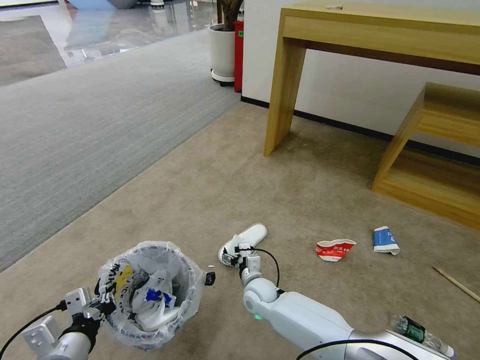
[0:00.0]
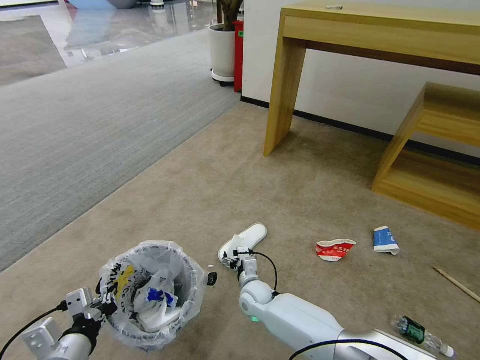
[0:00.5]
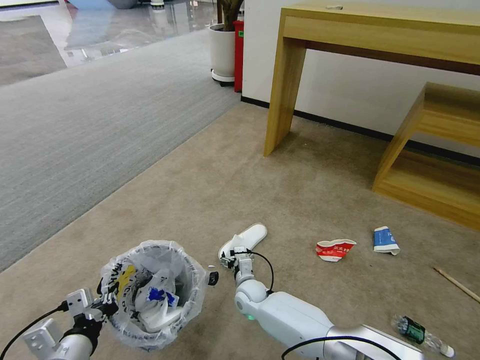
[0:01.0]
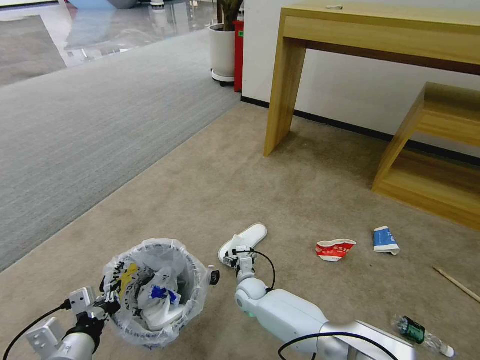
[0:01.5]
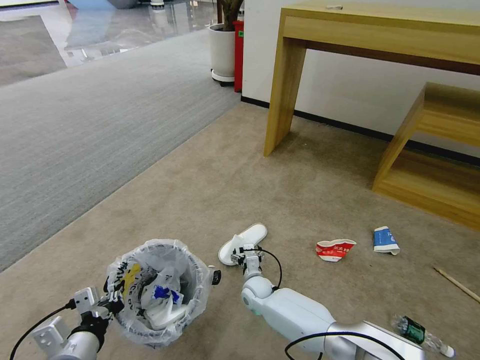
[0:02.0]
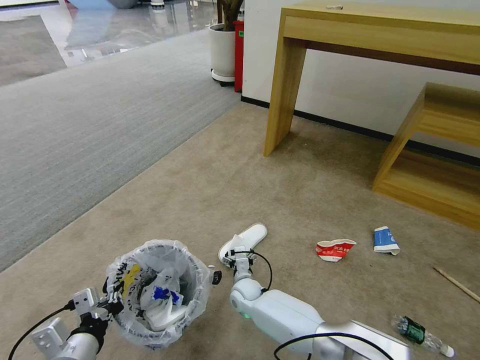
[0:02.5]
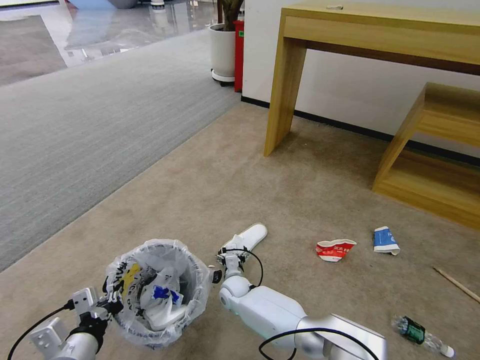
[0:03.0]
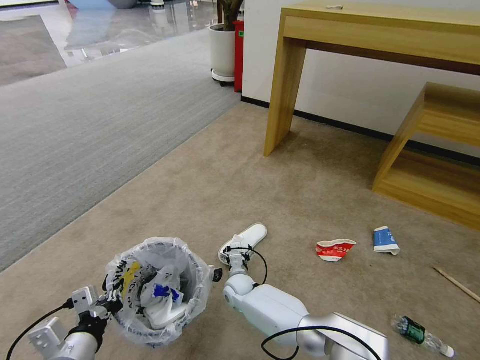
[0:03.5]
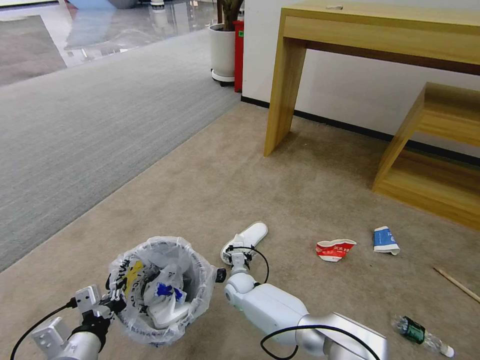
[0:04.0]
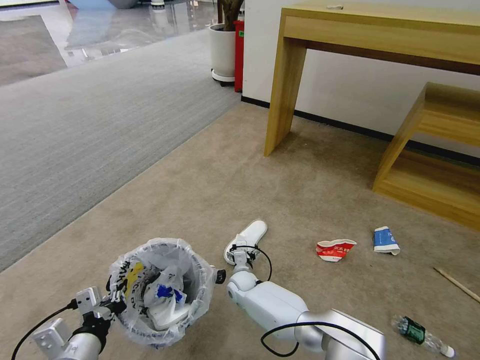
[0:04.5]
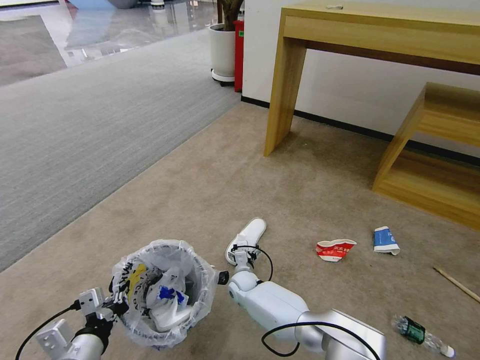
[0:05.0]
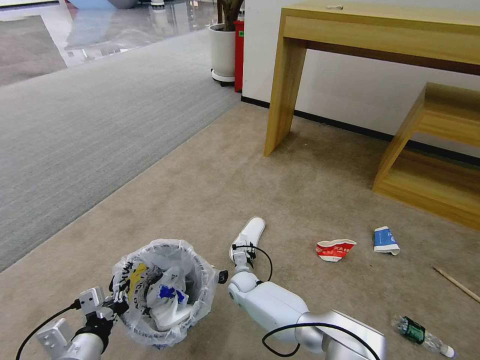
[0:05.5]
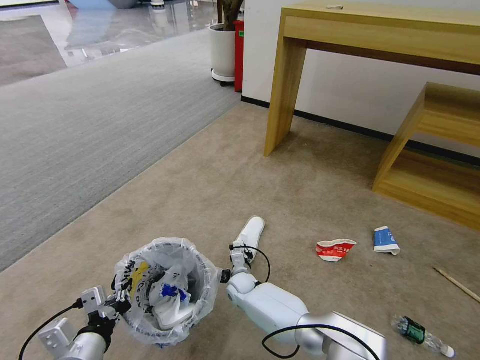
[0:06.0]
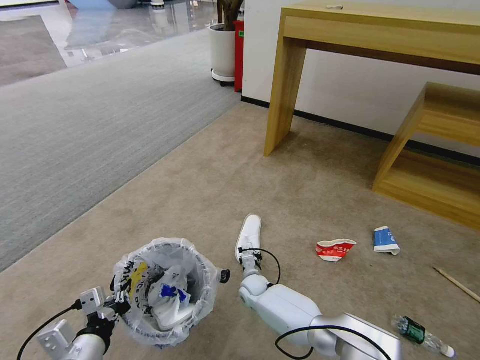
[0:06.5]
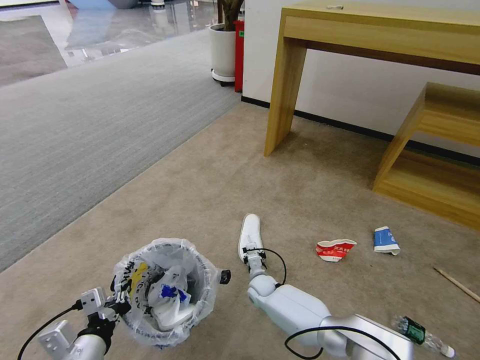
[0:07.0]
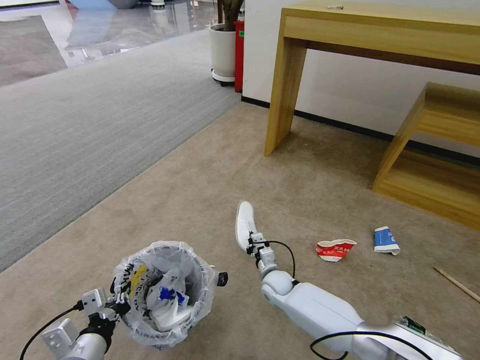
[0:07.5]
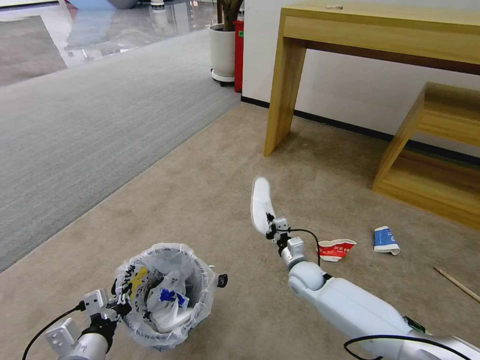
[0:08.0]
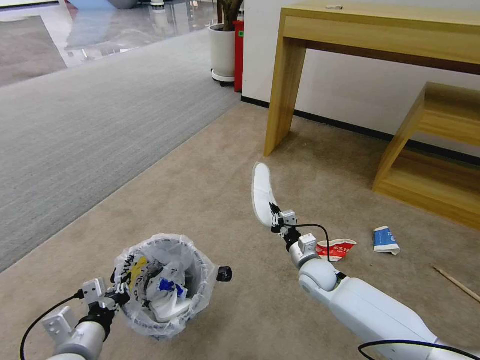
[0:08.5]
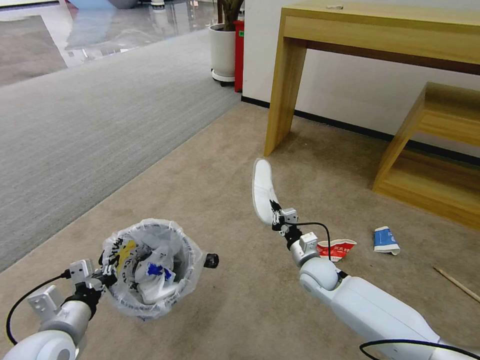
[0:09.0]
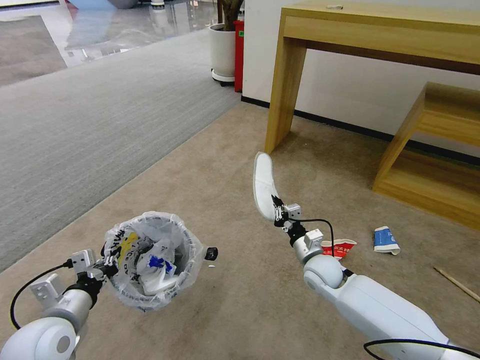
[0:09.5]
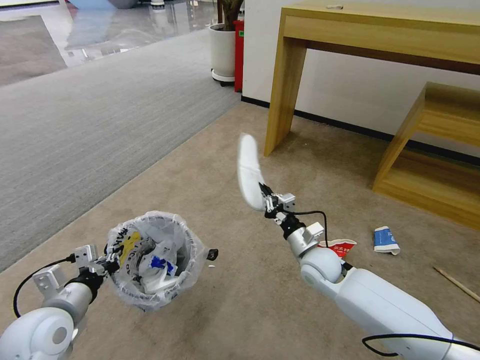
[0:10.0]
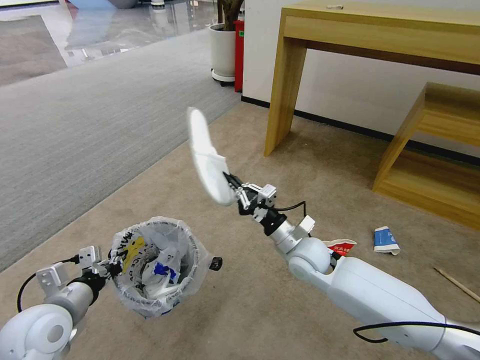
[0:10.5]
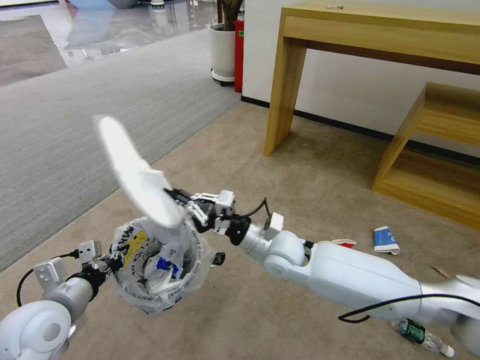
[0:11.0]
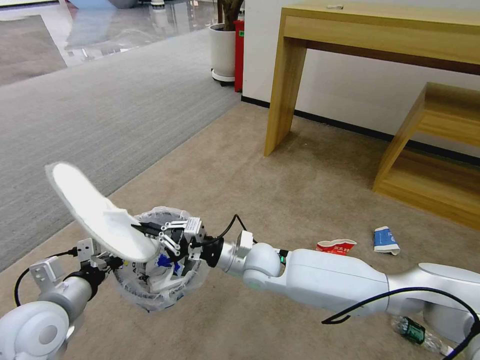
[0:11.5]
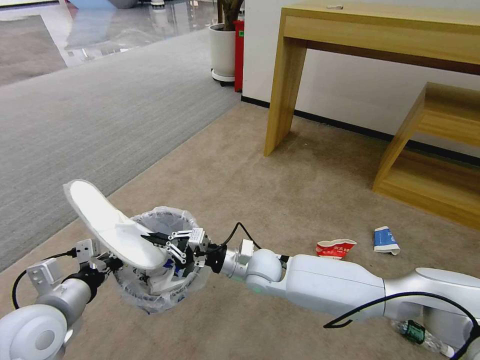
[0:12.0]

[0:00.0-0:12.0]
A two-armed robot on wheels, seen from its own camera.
Task of the whole recording: Pick up the trash bin and place the garbage on the floor into it.
0:00.0 to 0:02.0: The grippers stay close to where they were, moving slightly.
0:02.0 to 0:04.0: The right gripper is displaced to the left by approximately 5 cm.
0:04.0 to 0:06.0: The right gripper closes.
0:06.0 to 0:08.0: The right gripper heads to the right and upward, covering roughly 20 cm.
0:08.0 to 0:10.0: The left gripper shifts about 10 cm forward and to the left; the right gripper moves upward, approximately 10 cm.
0:10.0 to 0:12.0: The right gripper is displaced to the left by about 15 cm.

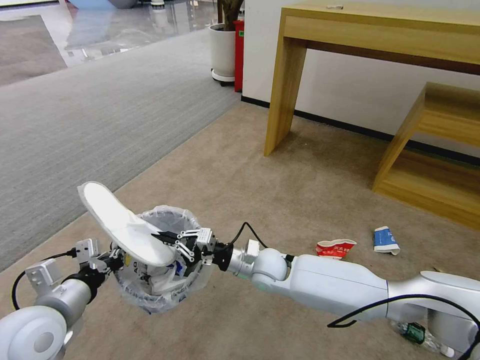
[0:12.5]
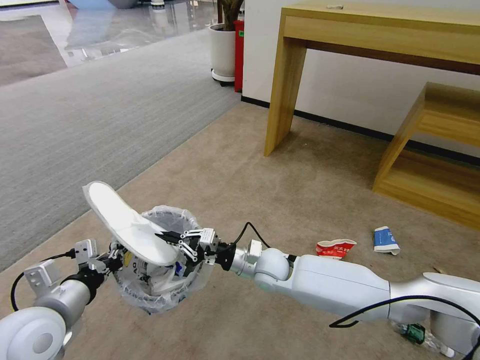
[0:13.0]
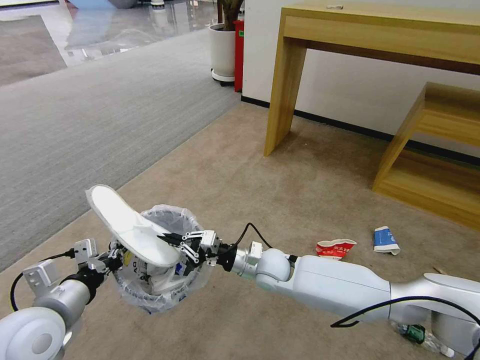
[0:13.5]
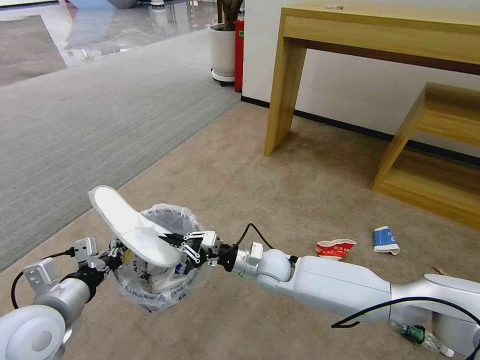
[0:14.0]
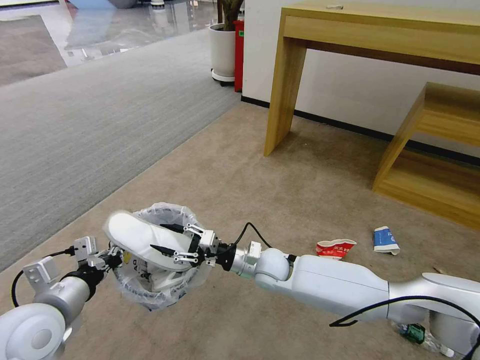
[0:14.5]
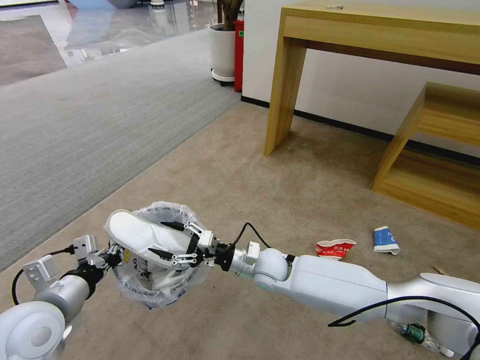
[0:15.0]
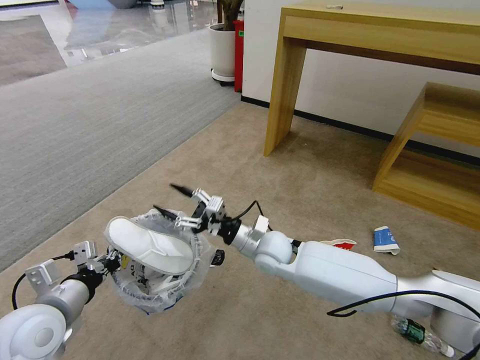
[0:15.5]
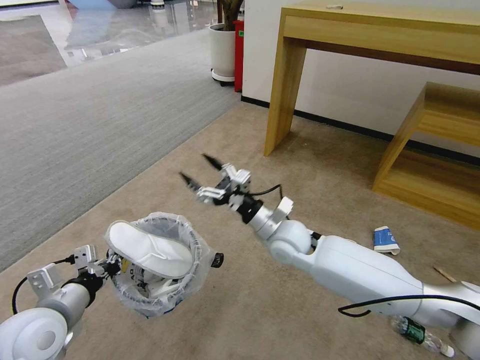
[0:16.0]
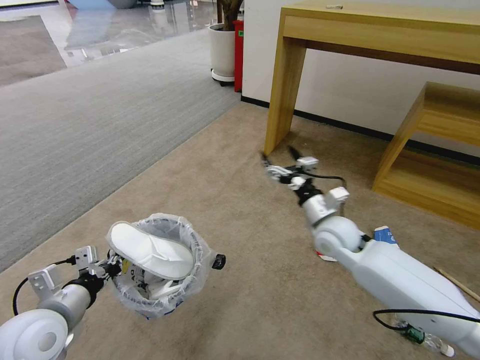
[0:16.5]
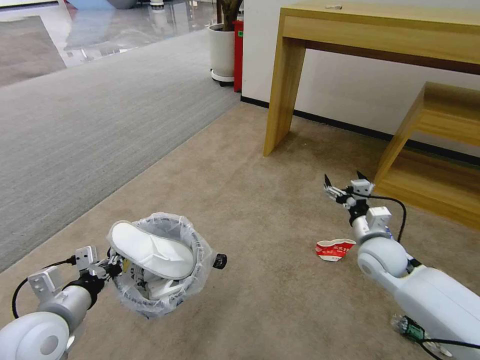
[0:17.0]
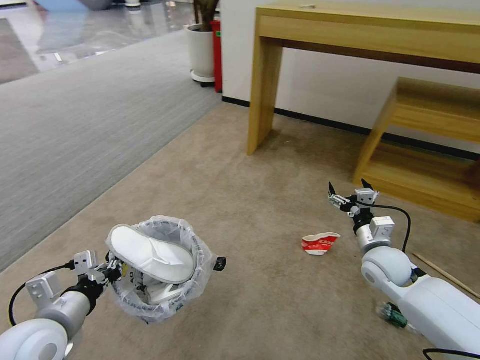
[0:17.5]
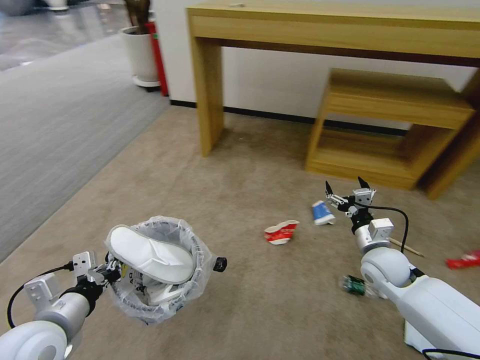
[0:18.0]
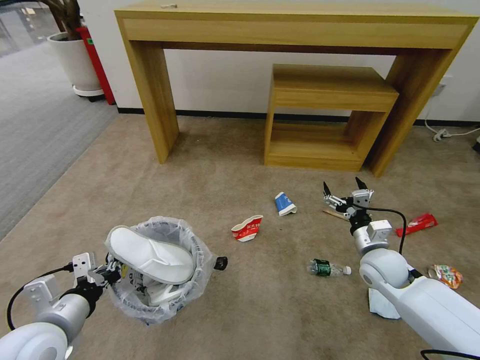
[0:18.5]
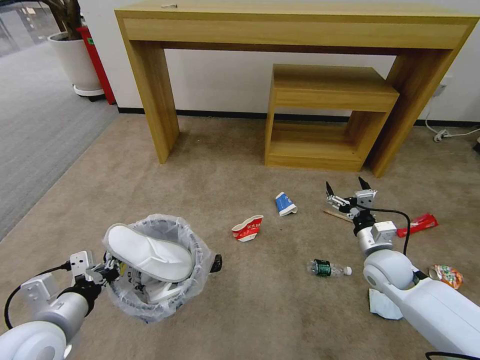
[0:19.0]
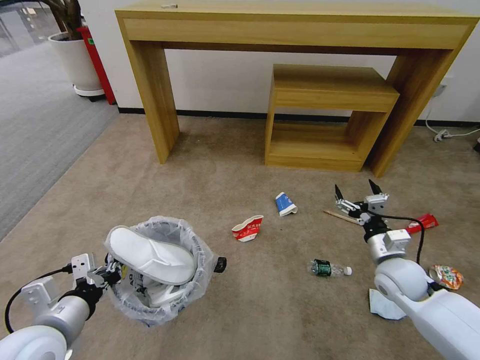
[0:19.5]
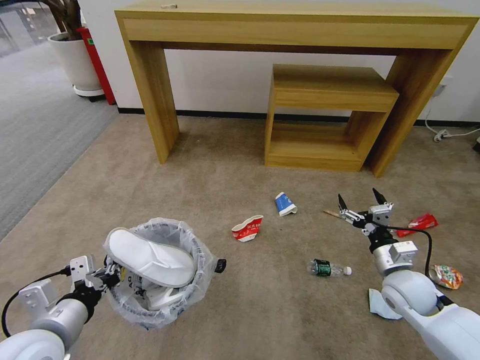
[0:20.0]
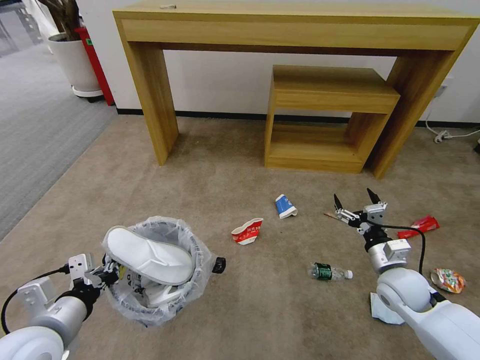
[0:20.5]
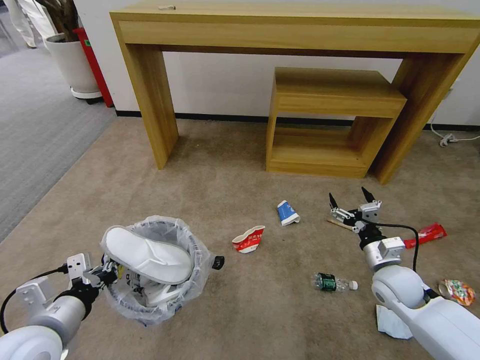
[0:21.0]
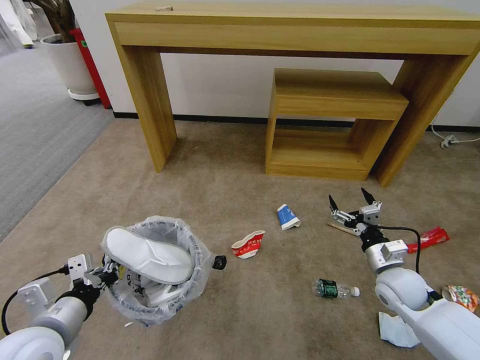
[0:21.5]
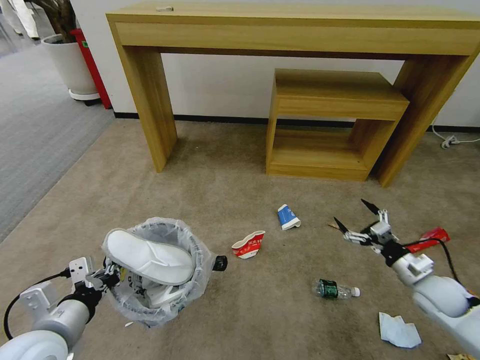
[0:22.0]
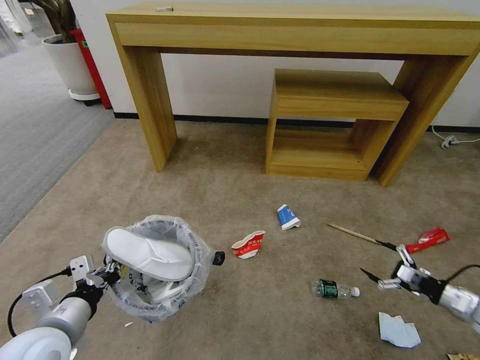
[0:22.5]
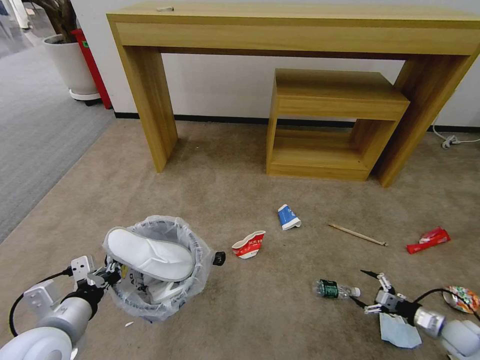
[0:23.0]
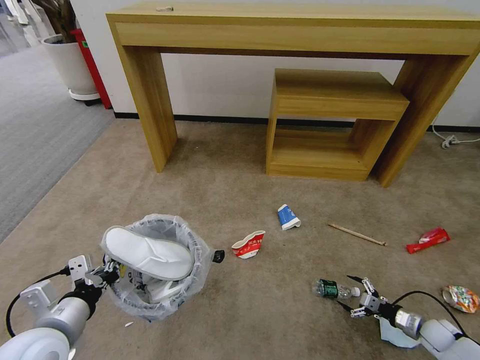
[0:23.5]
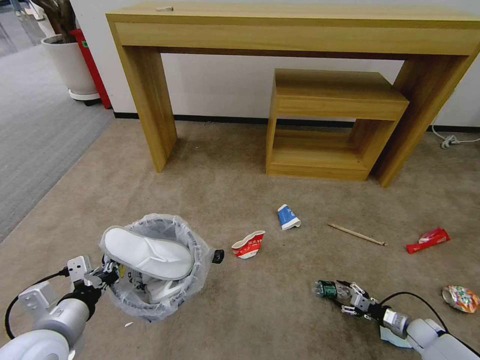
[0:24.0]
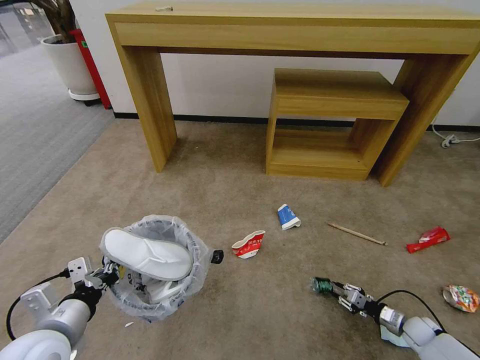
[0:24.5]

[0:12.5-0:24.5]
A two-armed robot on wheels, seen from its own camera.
Task of the whole recording: Pick up the trash bin and place the garbage on the floor into it.
0:12.5 to 0:14.5: The right gripper opens up.
0:14.5 to 0:16.5: The right gripper is displaced to the right and upward by roughly 15 cm, and opens up.
0:16.5 to 0:18.5: The right gripper shifts about 15 cm to the right and downward.
0:18.5 to 0:20.5: The right gripper ends up some 5 cm from where it was.
0:20.5 to 0:22.5: The right gripper heads to the right, covering approximately 25 cm.
0:22.5 to 0:24.5: The right gripper is displaced downward by some 15 cm, and closes its fingers.

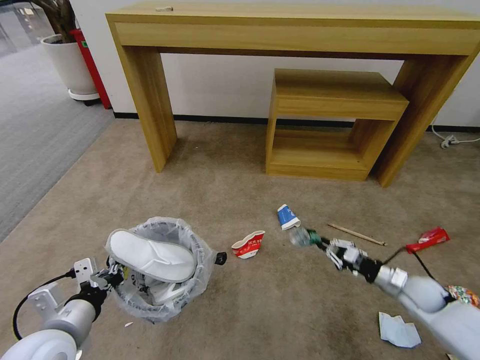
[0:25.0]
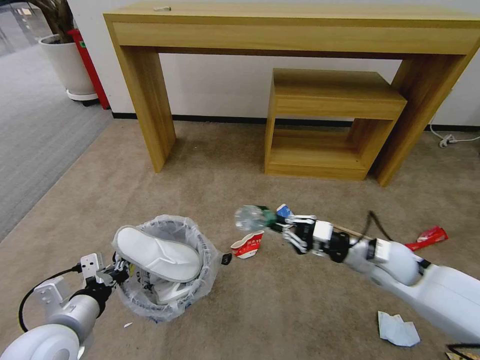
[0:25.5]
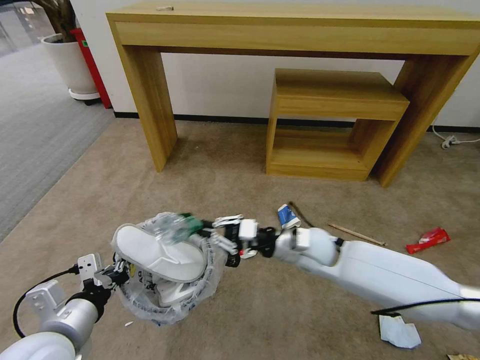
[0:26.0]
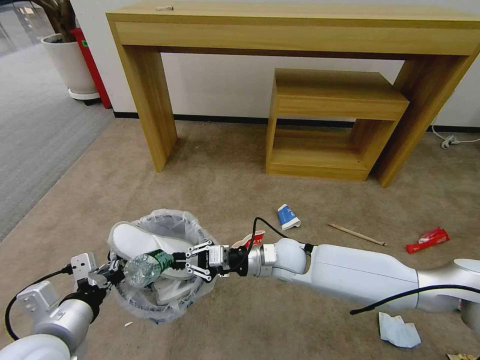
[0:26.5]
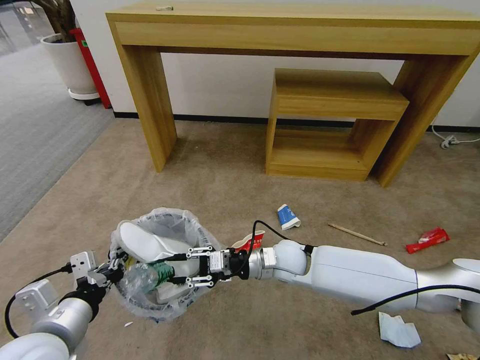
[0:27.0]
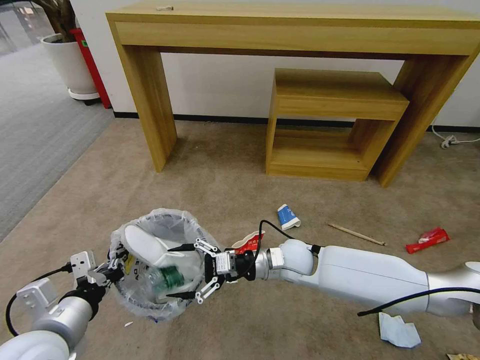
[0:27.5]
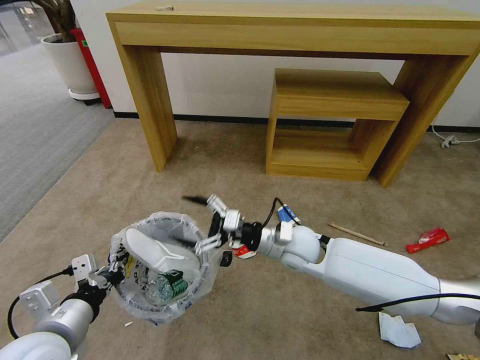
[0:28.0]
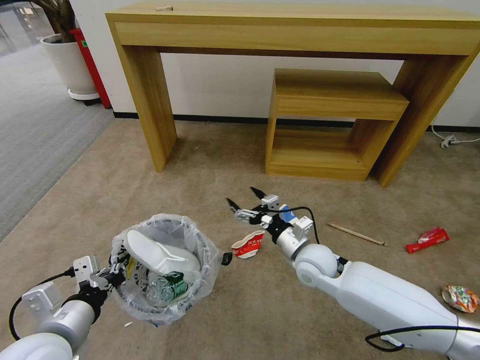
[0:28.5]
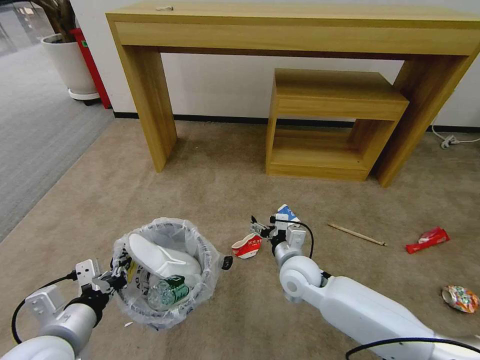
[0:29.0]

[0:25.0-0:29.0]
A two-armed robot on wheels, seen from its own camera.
Task of the whole recording: Pick up the trash bin and place the garbage on the floor into it.
0:25.0 to 0:27.0: The right gripper moves to the left, roughly 35 cm.
0:27.0 to 0:29.0: The right gripper opens up.
